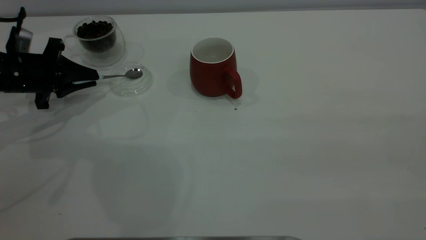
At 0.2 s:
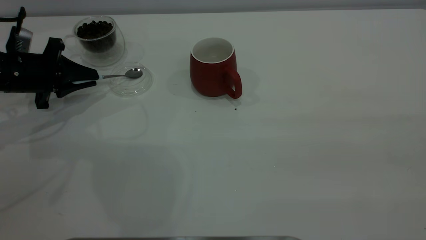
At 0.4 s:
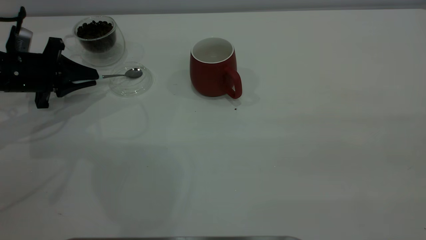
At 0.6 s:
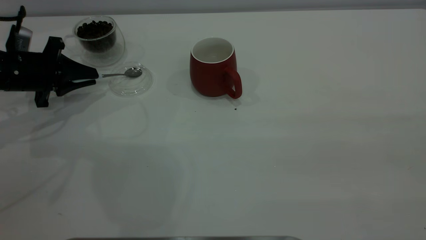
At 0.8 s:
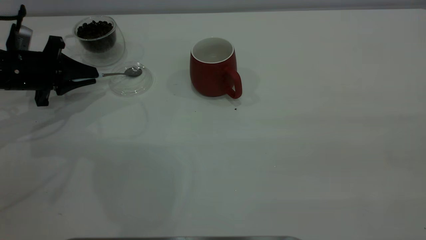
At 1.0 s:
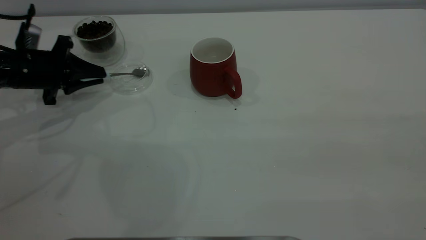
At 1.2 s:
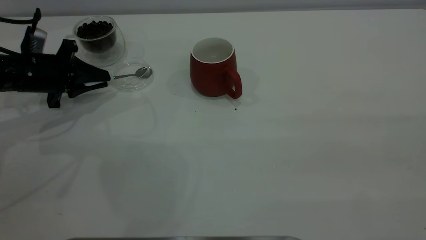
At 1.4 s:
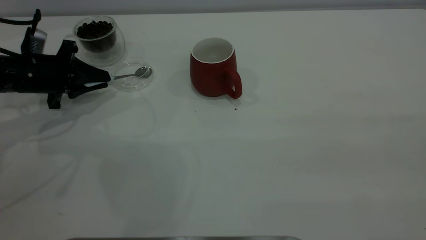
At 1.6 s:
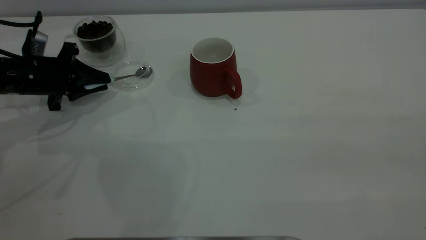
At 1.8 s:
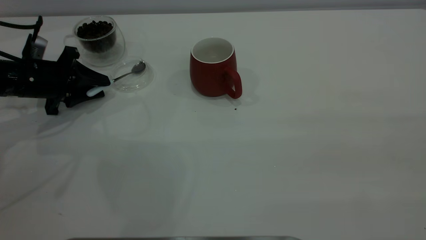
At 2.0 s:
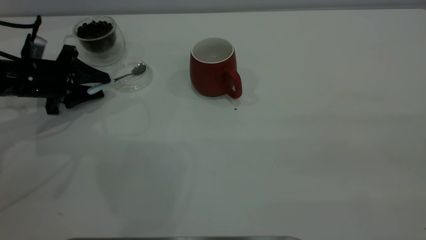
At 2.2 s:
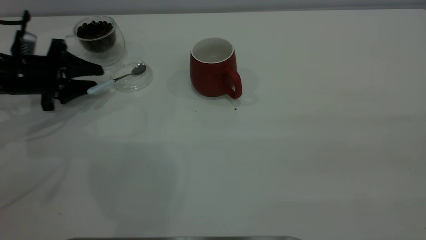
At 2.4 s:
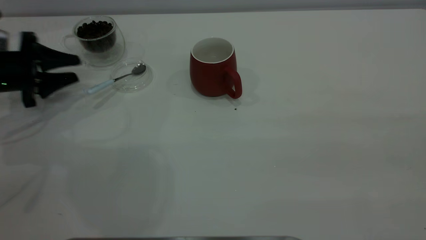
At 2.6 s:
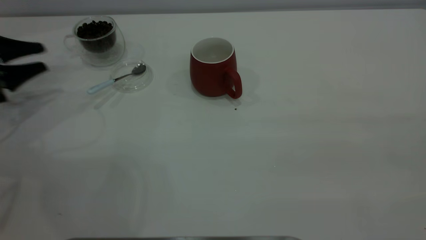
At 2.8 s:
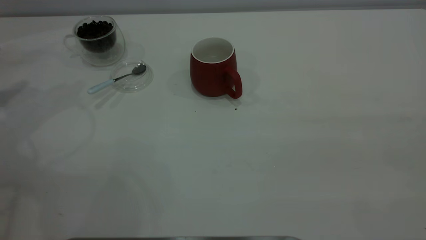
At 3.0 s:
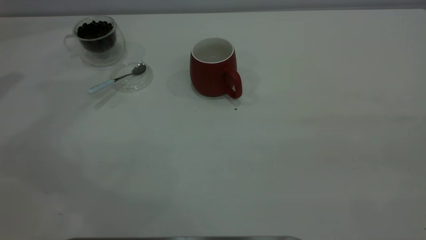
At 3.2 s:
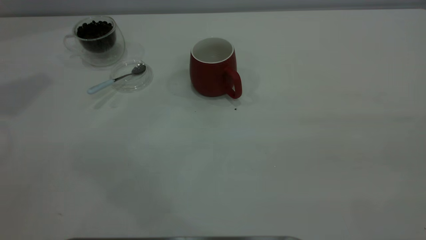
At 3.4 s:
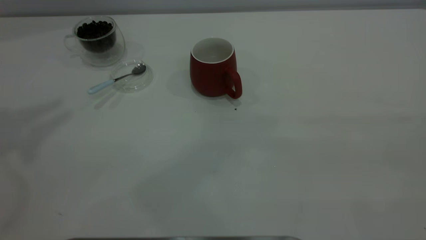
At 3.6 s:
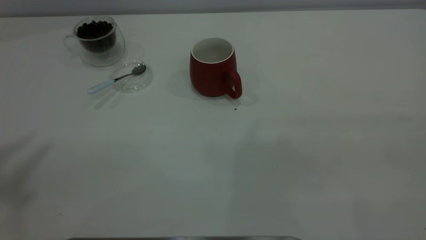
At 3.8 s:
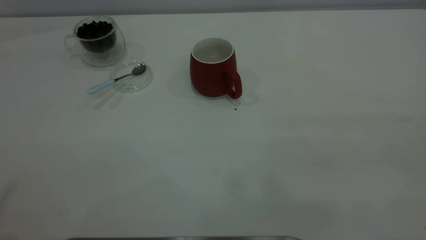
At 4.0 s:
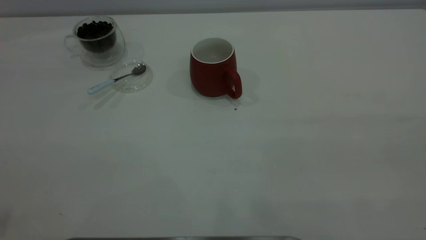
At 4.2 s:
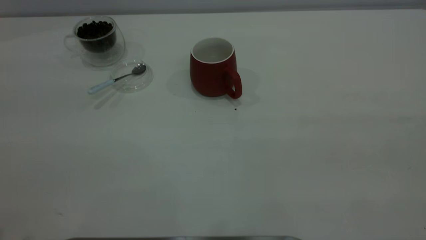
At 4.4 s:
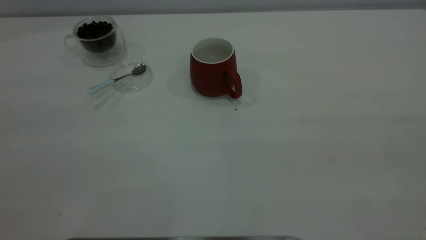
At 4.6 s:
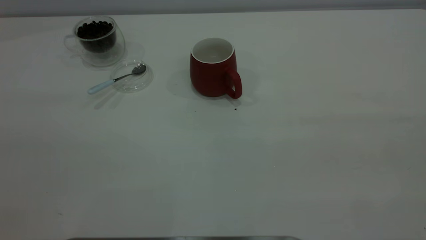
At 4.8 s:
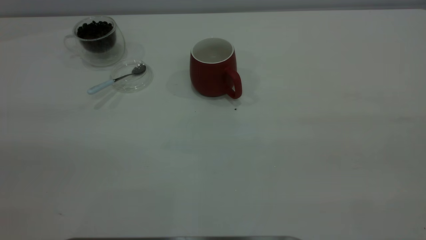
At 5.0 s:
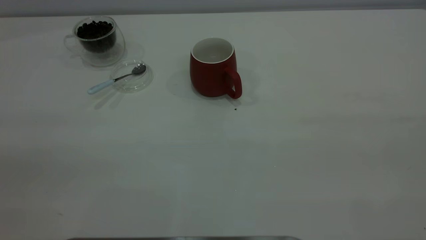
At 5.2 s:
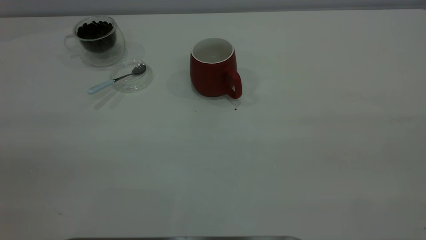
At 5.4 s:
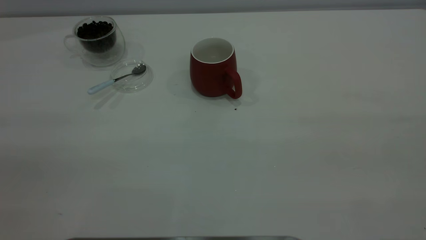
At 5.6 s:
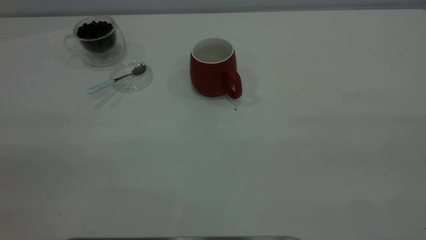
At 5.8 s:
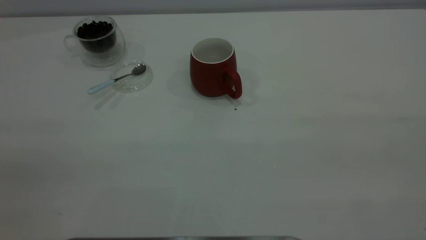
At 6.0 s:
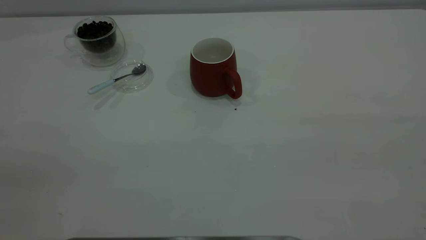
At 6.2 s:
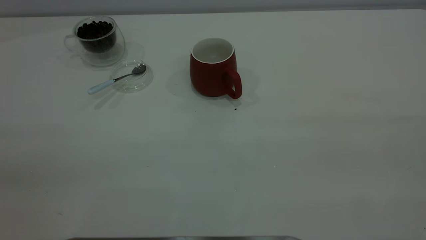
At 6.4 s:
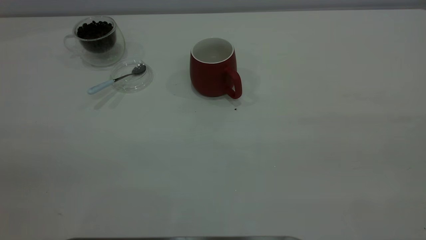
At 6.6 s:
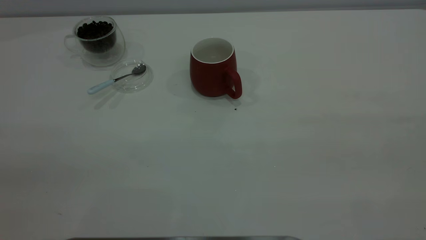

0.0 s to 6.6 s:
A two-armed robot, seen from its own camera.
Task of the whole recording: the right gripper place the red cup in the center of the table, the left gripper take the blue spoon from the cup lid and scoop out the coffee beans from the coffee cup and put them into the red cup, the left gripper put the spoon back into the cup lid.
Step, 0.0 to 2.4 s: Place the spoon back in its original place.
0.0 to 1.6 s: The grippers move only a little.
1.6 to 3.2 s: The left gripper heads upward, covering some 35 cm, and opens.
